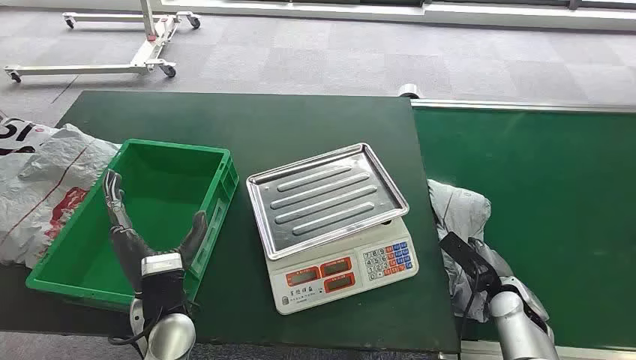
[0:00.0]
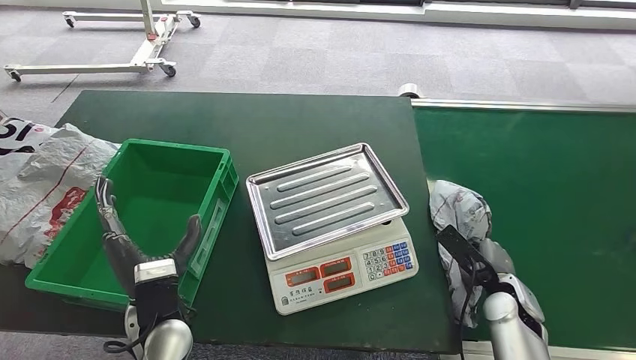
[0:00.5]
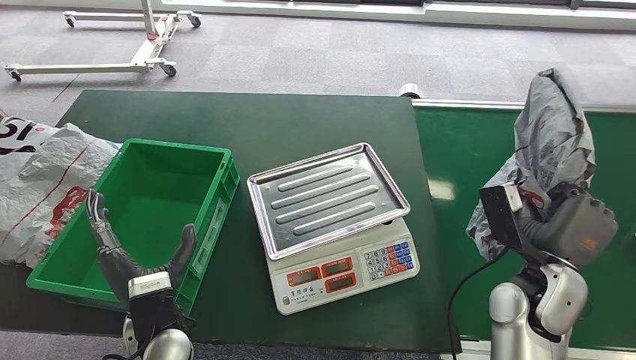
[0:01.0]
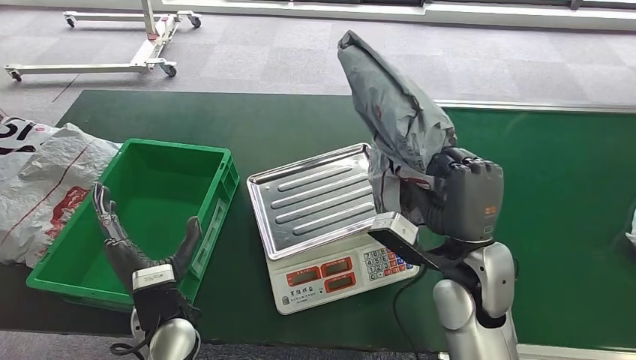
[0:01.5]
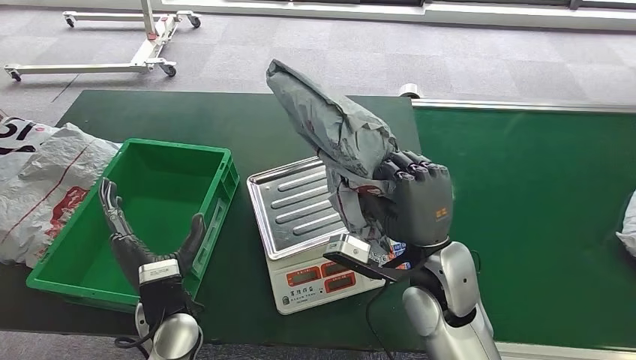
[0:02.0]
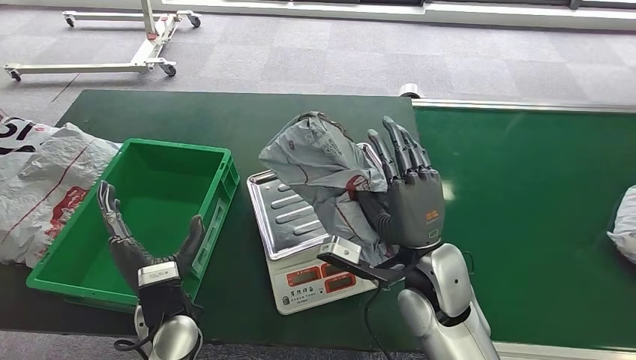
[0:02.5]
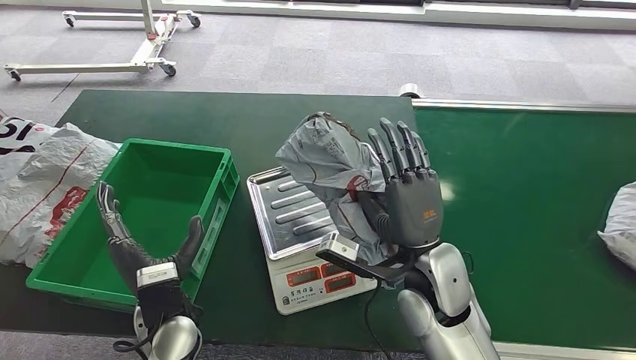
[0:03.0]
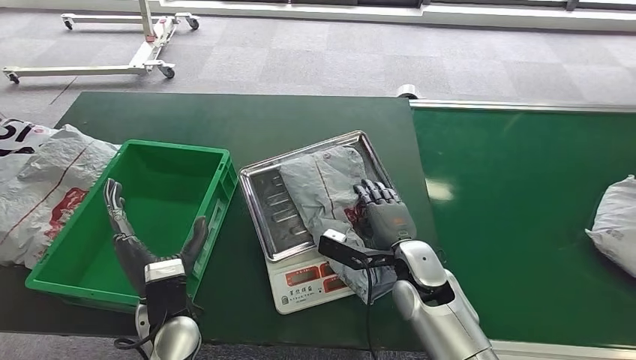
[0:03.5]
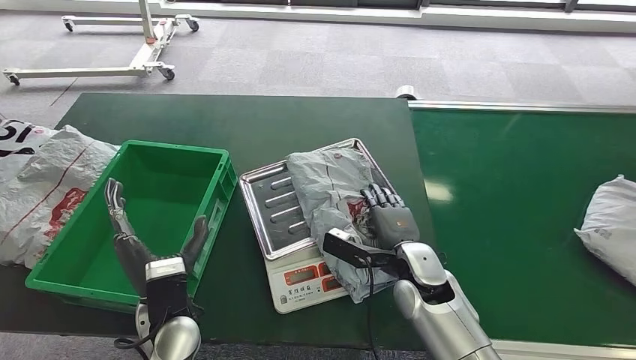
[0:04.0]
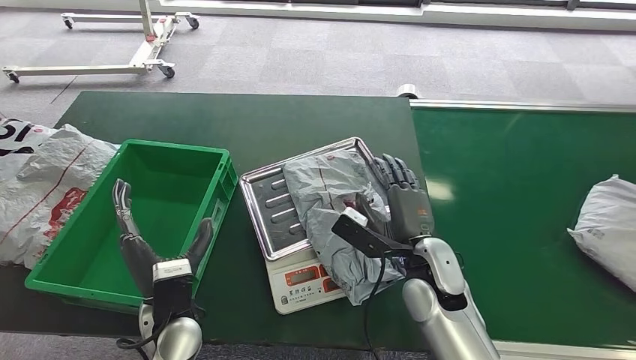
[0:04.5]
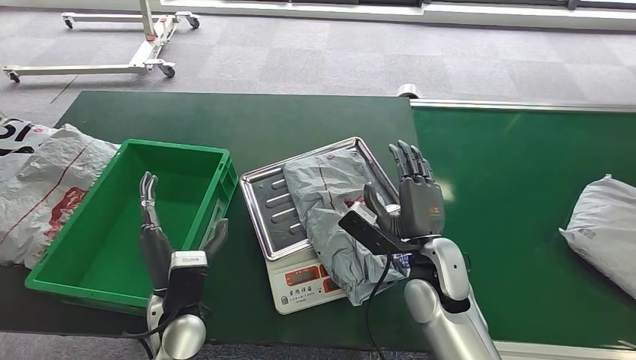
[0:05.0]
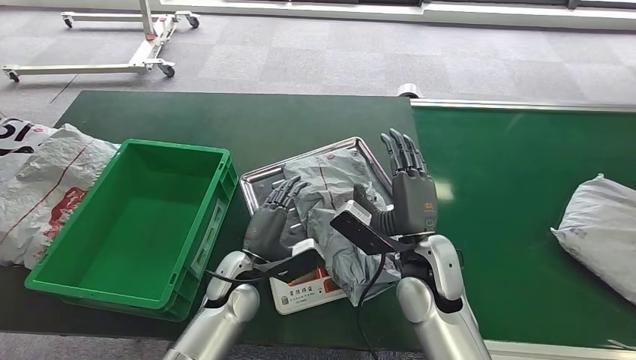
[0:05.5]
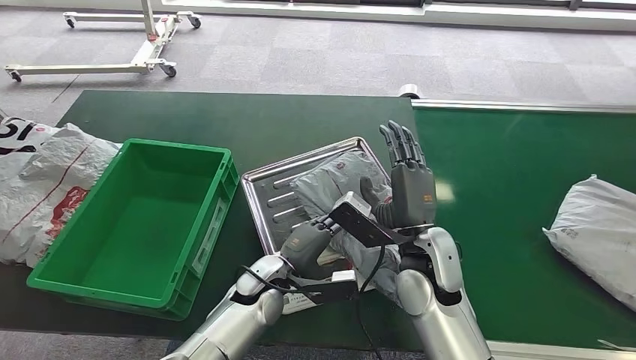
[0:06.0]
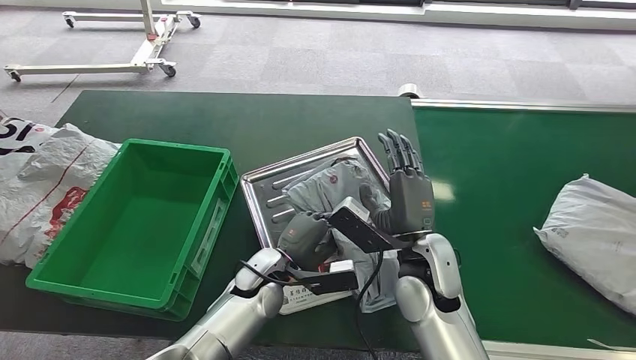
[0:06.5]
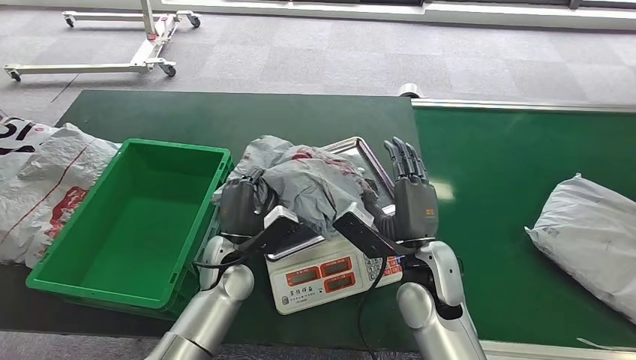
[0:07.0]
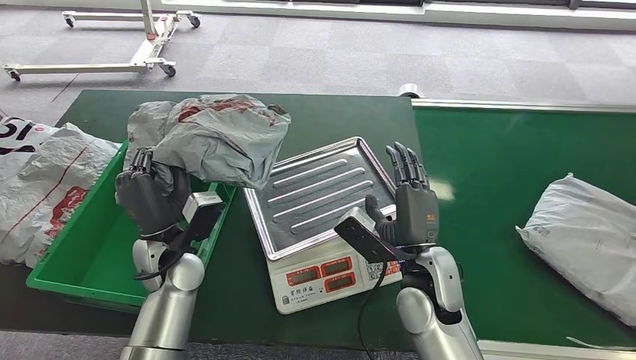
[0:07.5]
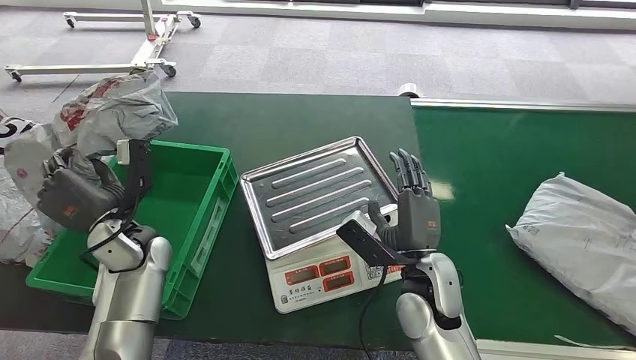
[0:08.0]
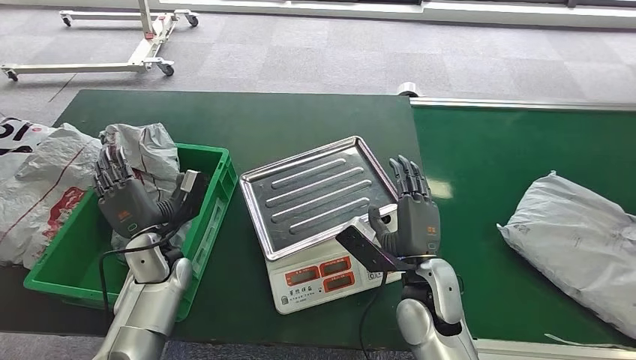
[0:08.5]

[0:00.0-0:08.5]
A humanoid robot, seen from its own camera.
Step, 0:00.0 to 0:01.5: Pick up the package from the conveyor belt.
Step, 0:02.0 to 0:04.5: Place the package onto the inbound machine.
Step, 0:05.0 to 0:07.0: Pick up the package from the inbound machine.
Step, 0:07.5 to 0:08.5: Place the package into the parcel locker.
